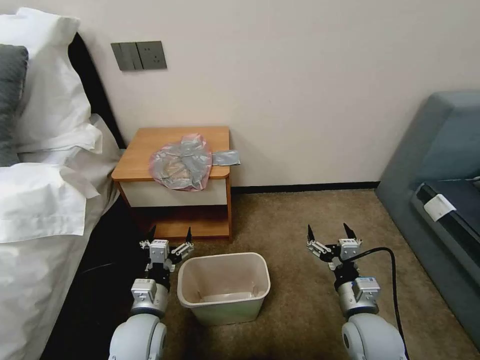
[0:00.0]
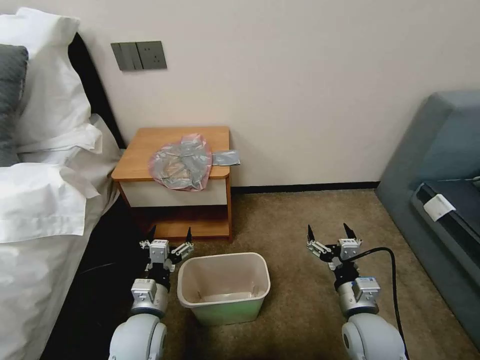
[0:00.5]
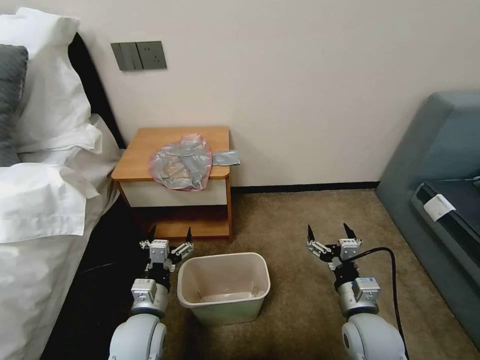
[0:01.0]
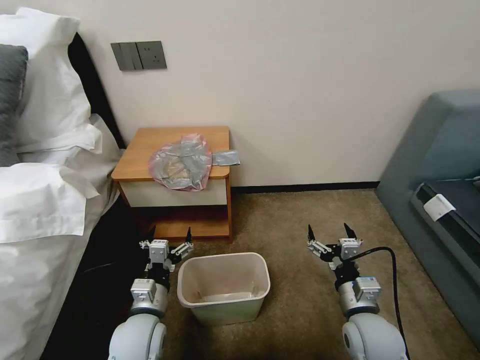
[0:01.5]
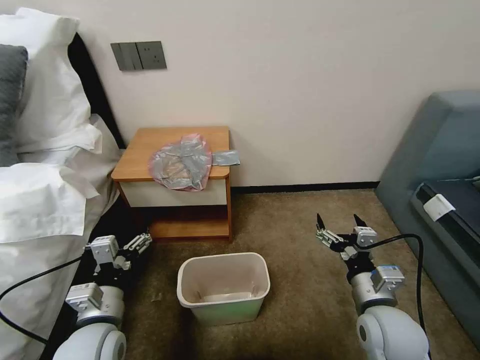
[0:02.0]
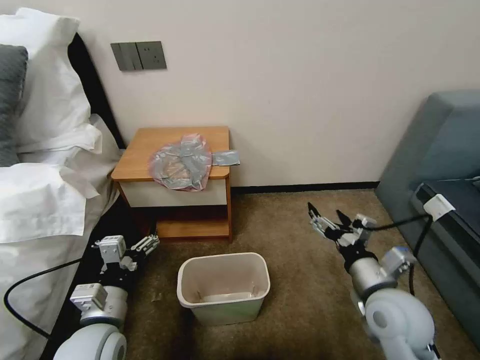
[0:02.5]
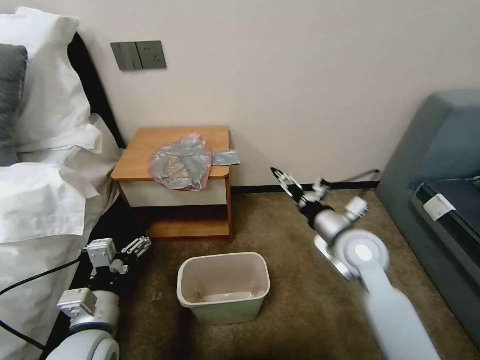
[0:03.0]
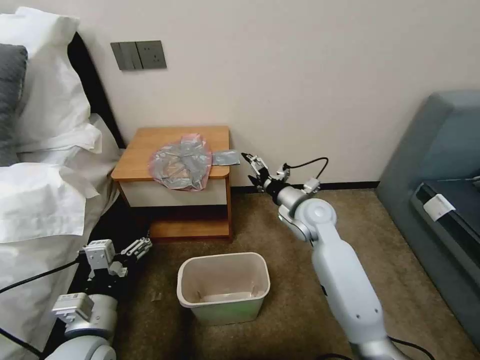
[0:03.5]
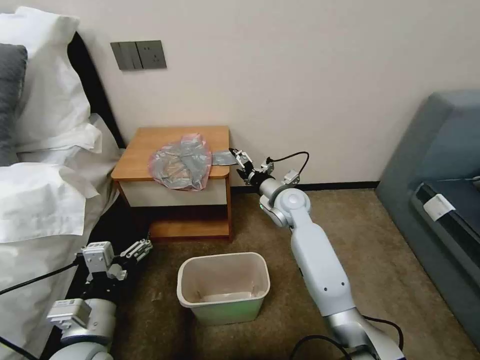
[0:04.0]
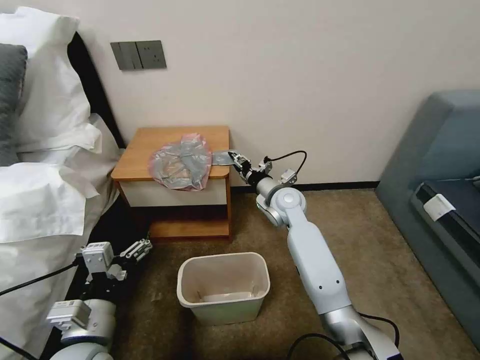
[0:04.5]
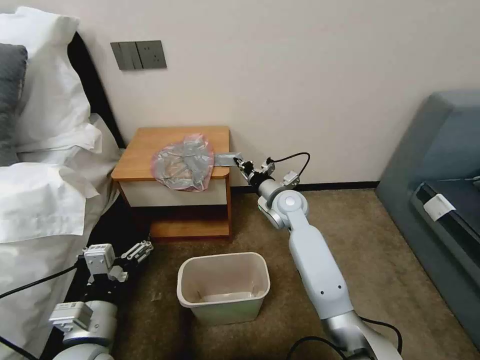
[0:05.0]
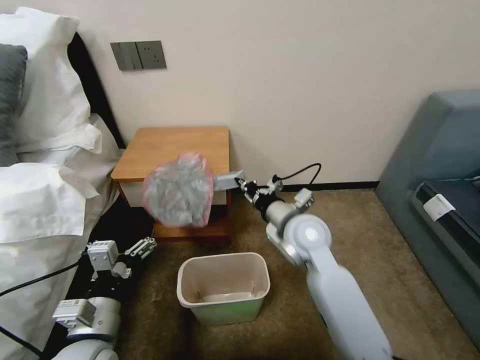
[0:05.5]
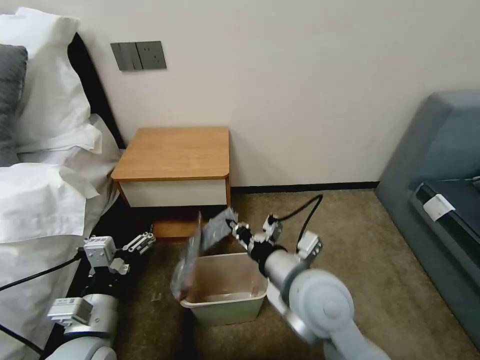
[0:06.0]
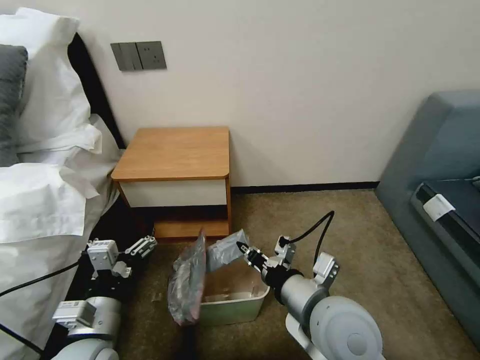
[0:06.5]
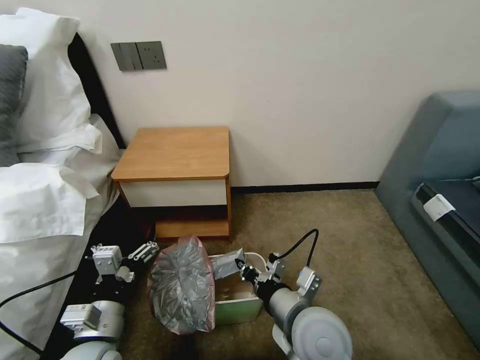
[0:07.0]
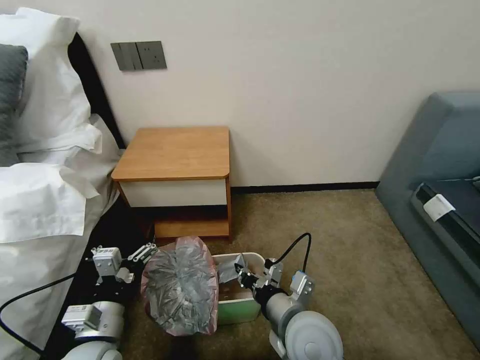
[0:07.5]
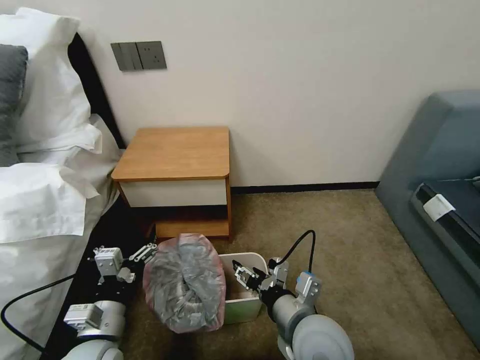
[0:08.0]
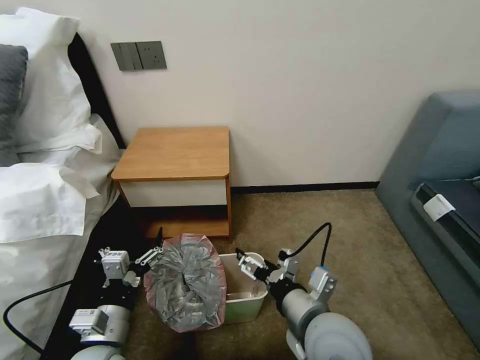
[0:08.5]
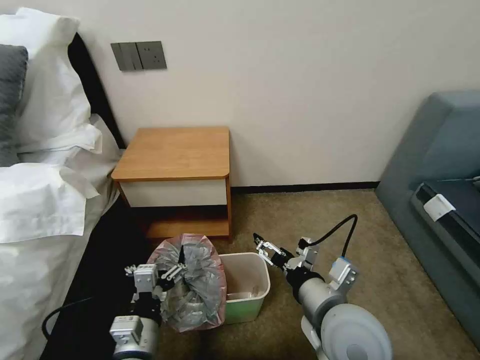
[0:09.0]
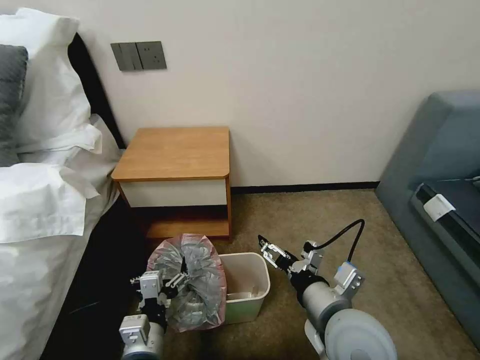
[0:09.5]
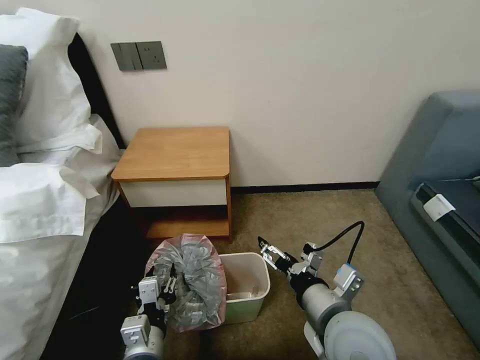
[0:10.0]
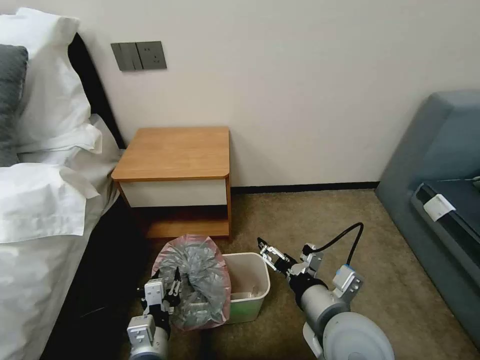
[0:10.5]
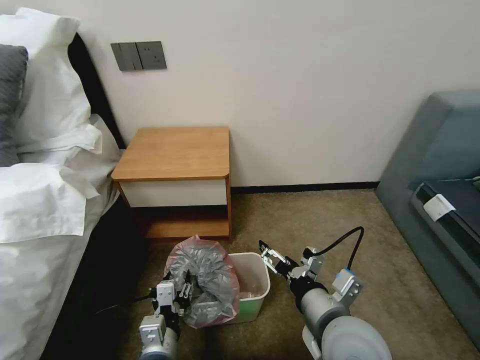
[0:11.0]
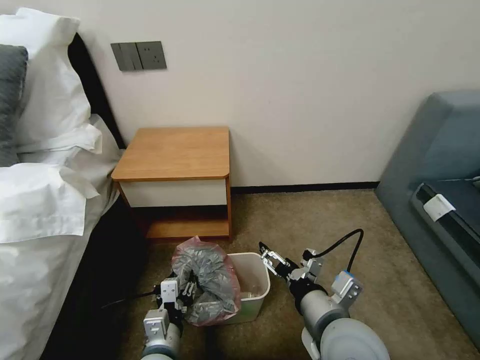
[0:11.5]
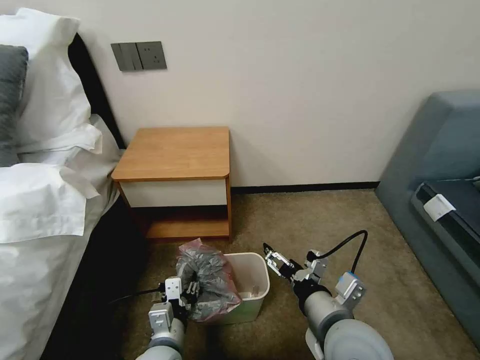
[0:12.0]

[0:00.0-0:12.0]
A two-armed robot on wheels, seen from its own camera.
Task of the whole recording: Pick up the garbage bag from the table and place it over the trash can.
0:02.0 to 0:04.0: The right gripper goes approximately 30 cm forward and to the left.
0:04.0 to 0:06.0: The right gripper moves backward, some 25 cm, and closes its fingers.
0:06.0 to 0:08.0: The right gripper moves downward, roughly 5 cm, and opens; the left gripper shifts by about 5 cm.
0:08.0 to 0:10.0: The right gripper shifts by roughly 5 cm. The left gripper goes approximately 10 cm to the right, and closes.
0:10.0 to 0:12.0: The grippers move only a little.

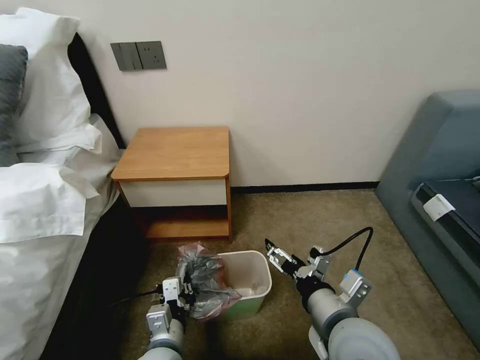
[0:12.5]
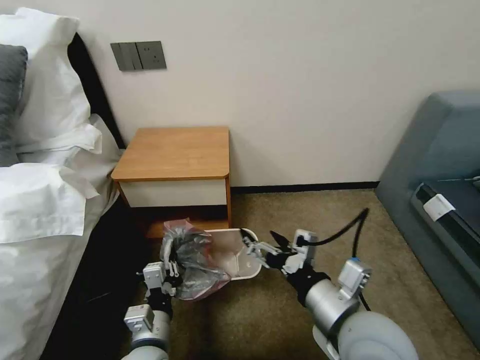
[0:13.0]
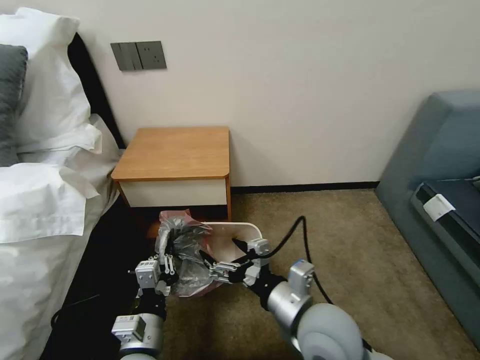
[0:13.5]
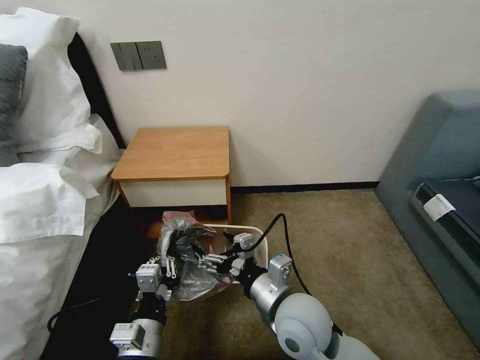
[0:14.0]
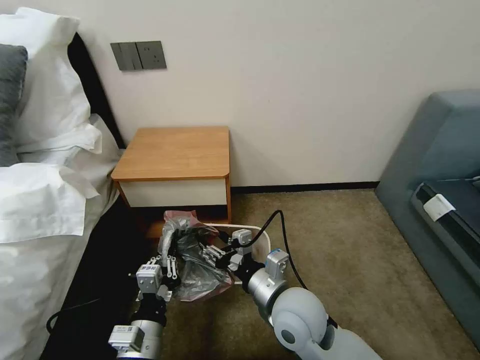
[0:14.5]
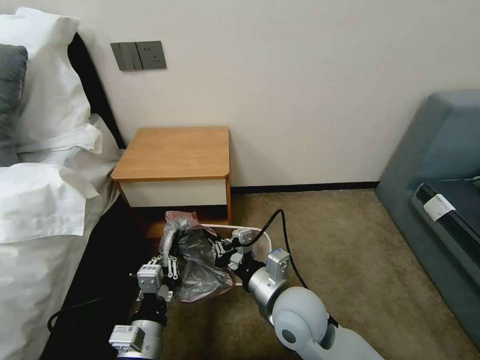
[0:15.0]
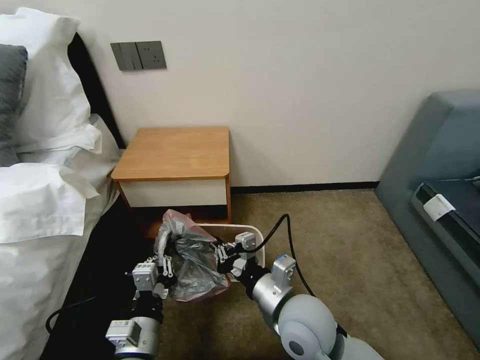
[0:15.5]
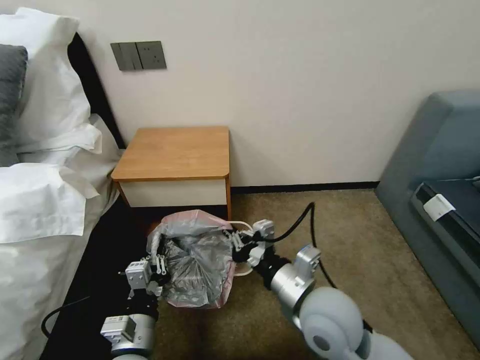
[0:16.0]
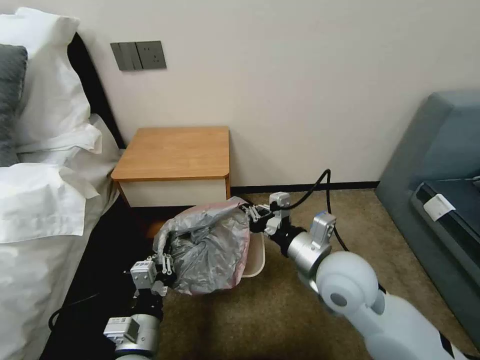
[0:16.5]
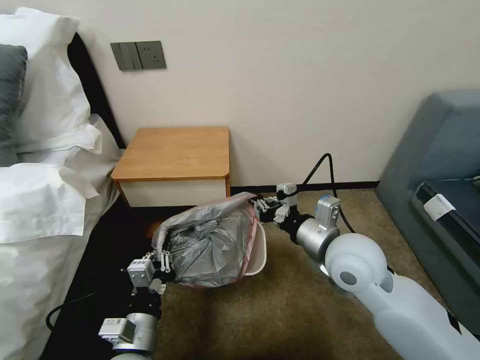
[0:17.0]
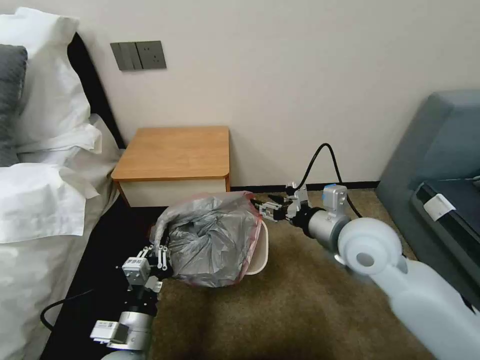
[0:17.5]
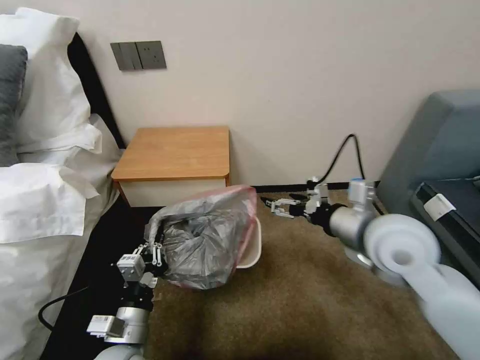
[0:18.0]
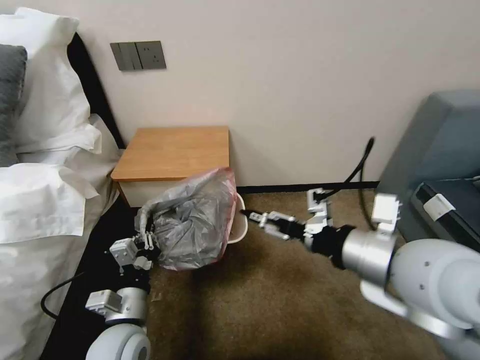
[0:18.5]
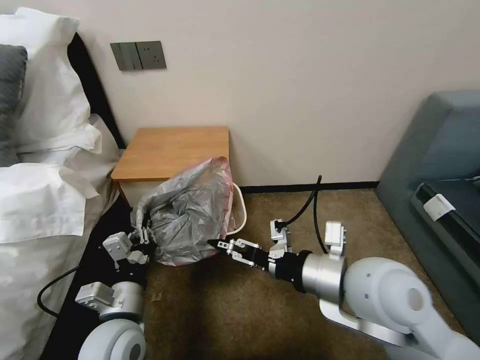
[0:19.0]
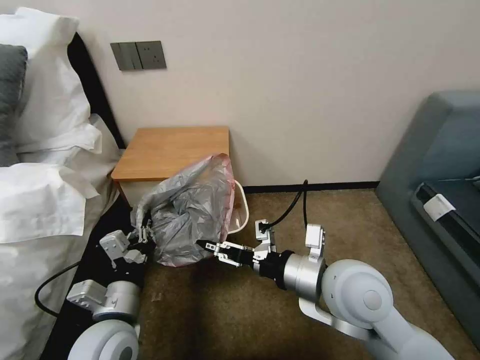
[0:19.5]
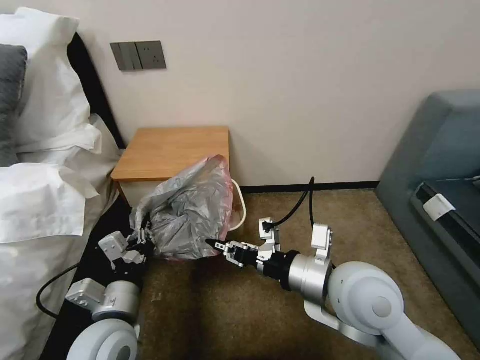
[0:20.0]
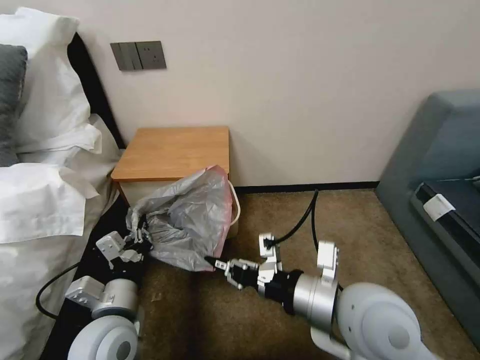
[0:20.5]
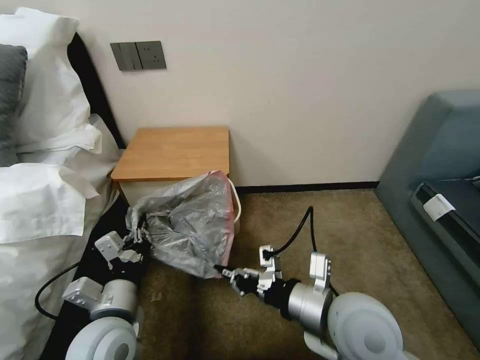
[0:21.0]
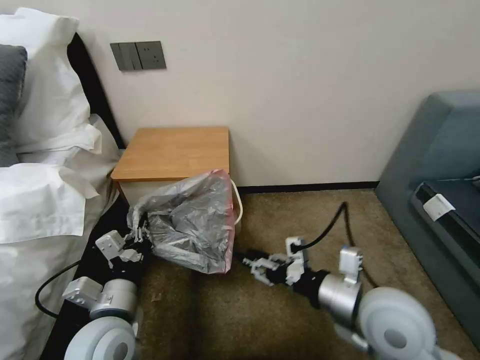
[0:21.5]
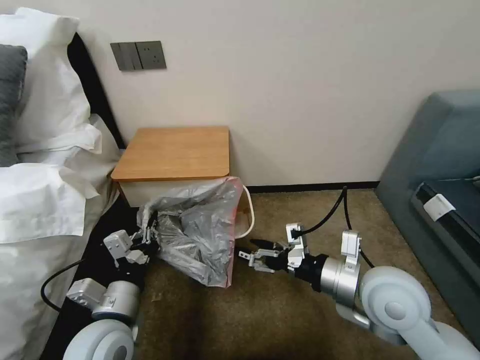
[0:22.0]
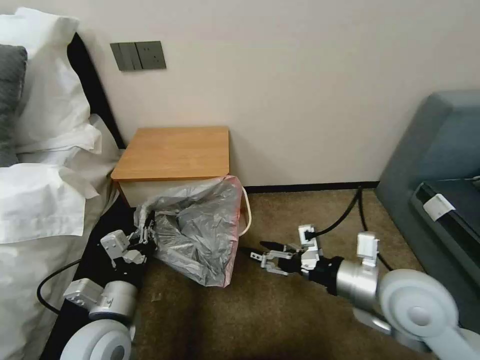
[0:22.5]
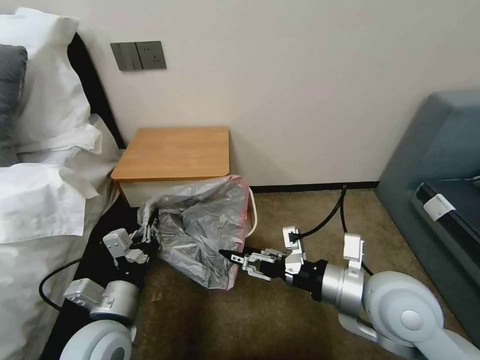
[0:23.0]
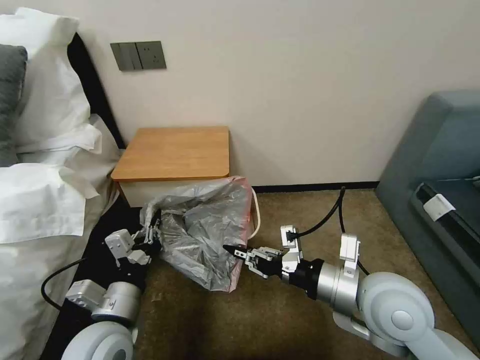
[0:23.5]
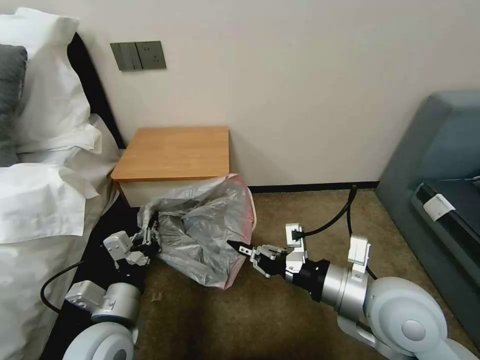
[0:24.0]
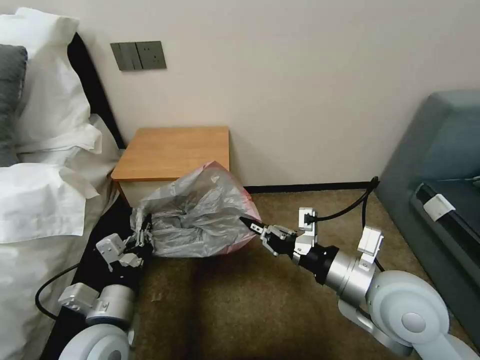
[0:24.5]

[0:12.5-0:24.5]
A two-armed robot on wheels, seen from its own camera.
Task of the whole recording: Pick up the garbage bag from the table and place it over the trash can.
0:12.5 to 0:14.5: The left gripper ends up about 5 cm from where it was; the right gripper moves to the left and forward, approximately 10 cm, and closes its fingers.
0:14.5 to 0:16.5: The right gripper goes roughly 10 cm to the right and upward, and closes its fingers.
0:16.5 to 0:18.5: The left gripper shifts by roughly 5 cm; the right gripper travels upward and to the right by some 15 cm, and opens its fingers.
0:18.5 to 0:20.5: The right gripper goes about 10 cm downward and to the left, and closes.
0:20.5 to 0:22.5: The right gripper is displaced to the right by about 10 cm, and opens up.
0:22.5 to 0:24.5: The right gripper closes up.

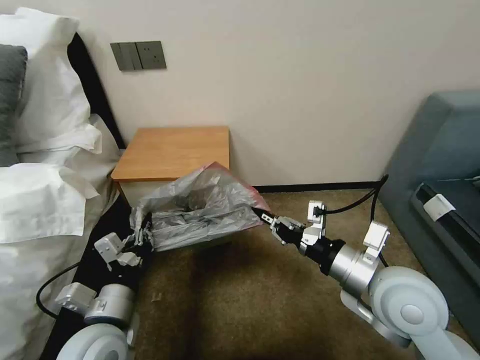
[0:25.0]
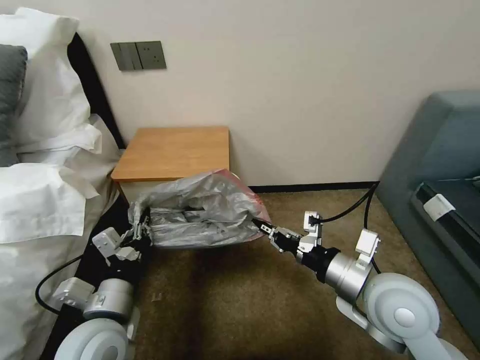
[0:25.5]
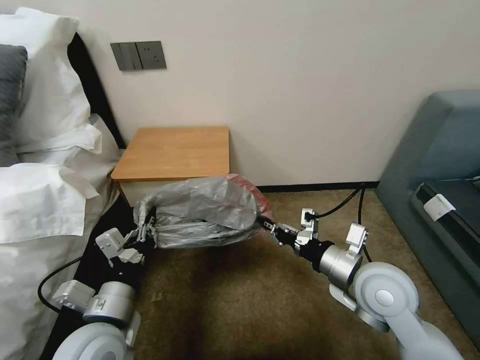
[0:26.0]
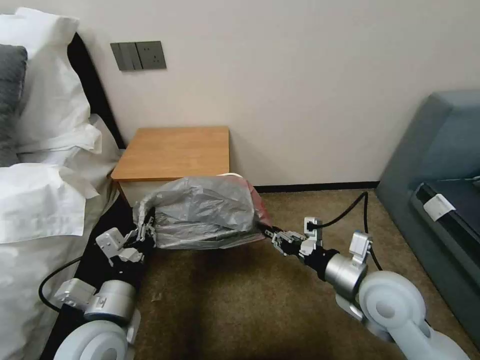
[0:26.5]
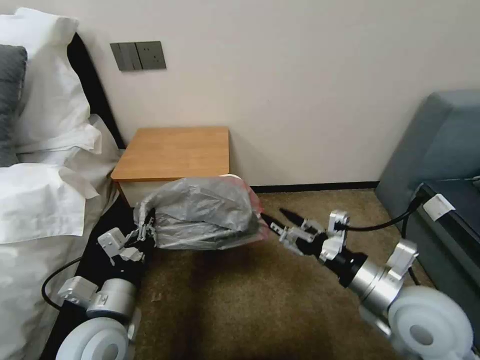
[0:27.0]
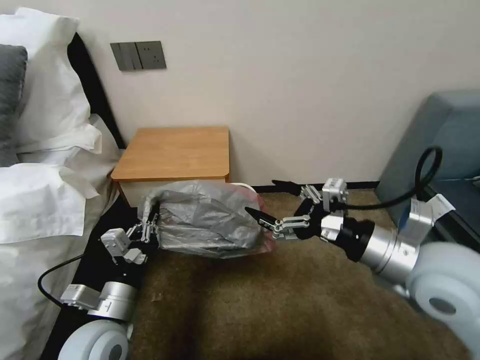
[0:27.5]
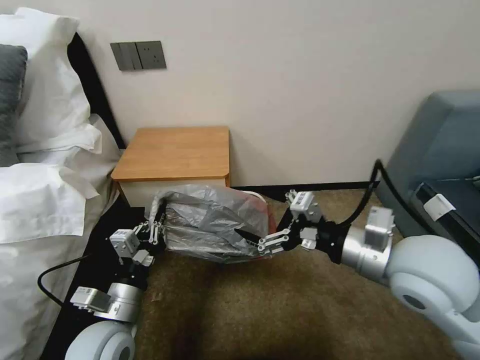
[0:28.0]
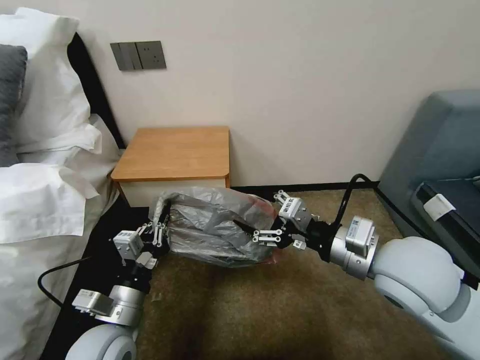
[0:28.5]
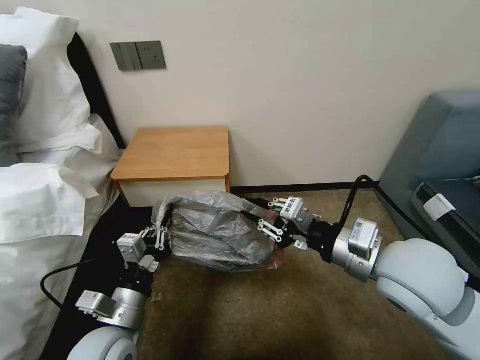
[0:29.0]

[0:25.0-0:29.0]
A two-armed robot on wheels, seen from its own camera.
Task of the whole recording: Pick up the garbage bag from the table and place it over the trash can.
0:25.0 to 0:27.0: The right gripper opens.
0:27.0 to 0:29.0: The right gripper goes about 5 cm upward, and closes.
